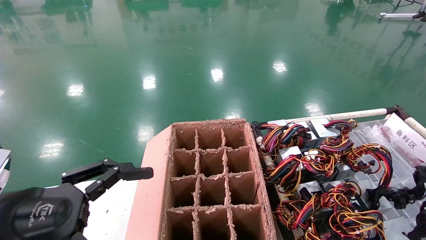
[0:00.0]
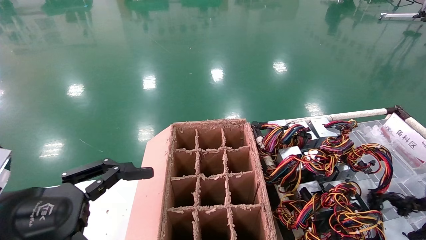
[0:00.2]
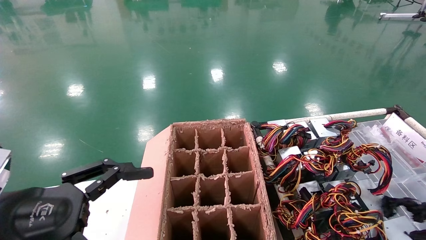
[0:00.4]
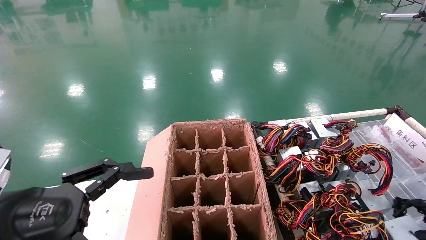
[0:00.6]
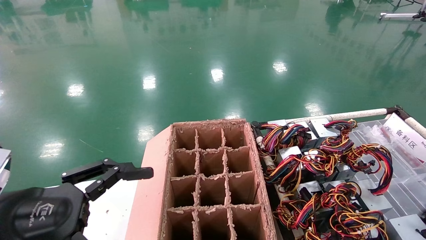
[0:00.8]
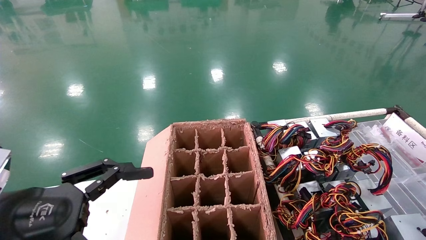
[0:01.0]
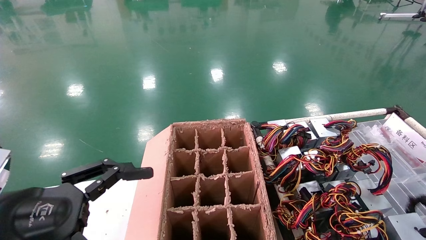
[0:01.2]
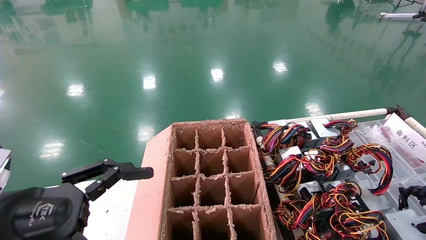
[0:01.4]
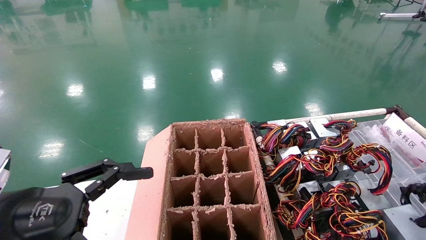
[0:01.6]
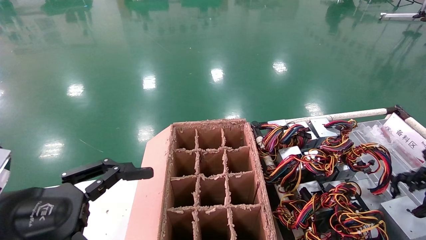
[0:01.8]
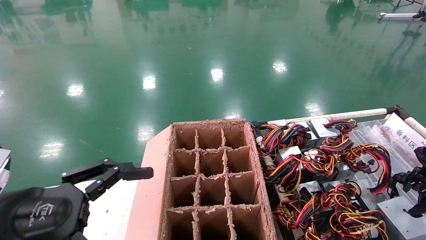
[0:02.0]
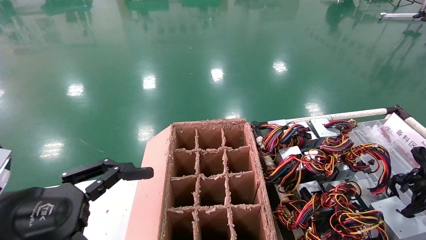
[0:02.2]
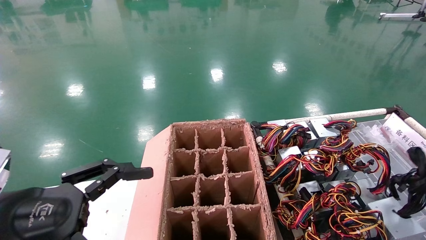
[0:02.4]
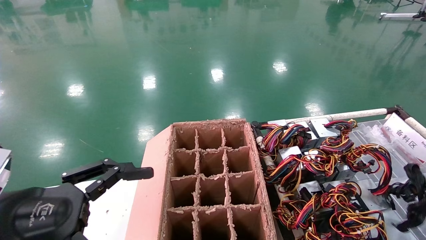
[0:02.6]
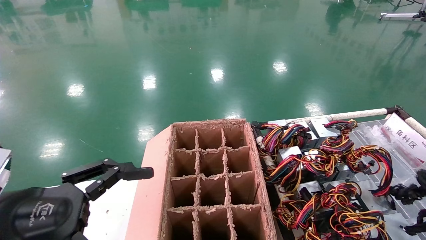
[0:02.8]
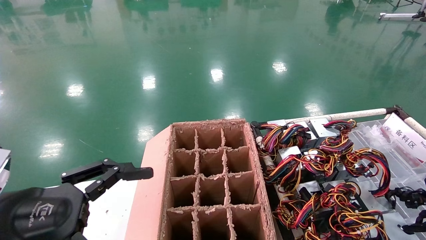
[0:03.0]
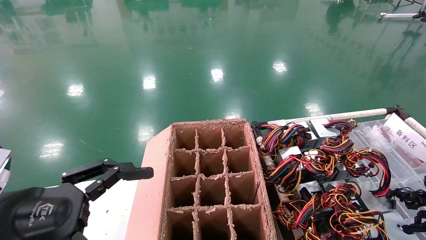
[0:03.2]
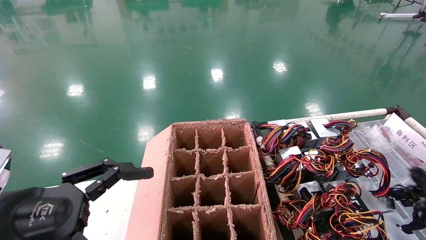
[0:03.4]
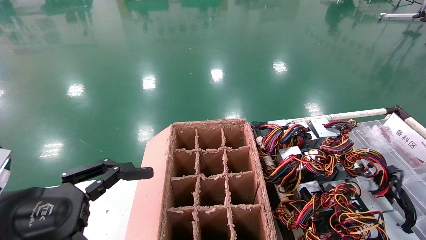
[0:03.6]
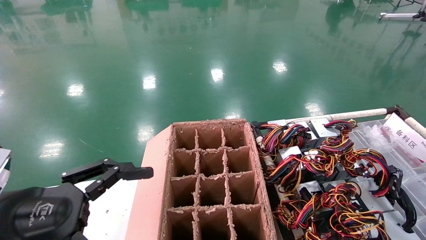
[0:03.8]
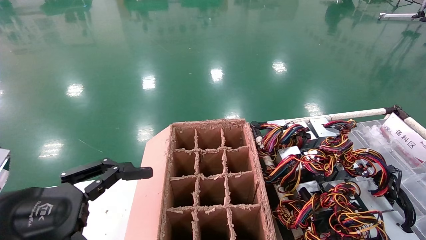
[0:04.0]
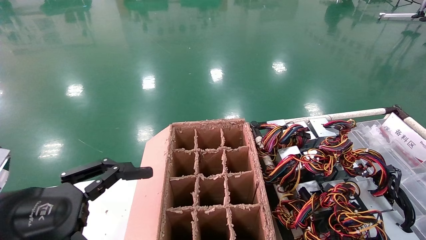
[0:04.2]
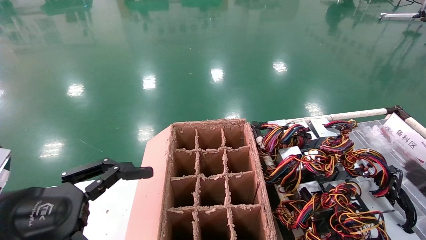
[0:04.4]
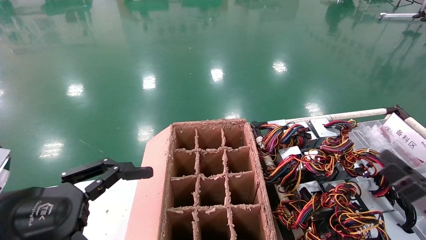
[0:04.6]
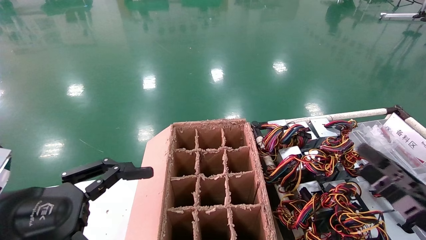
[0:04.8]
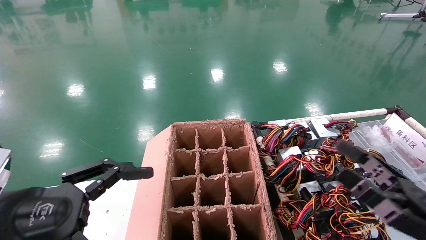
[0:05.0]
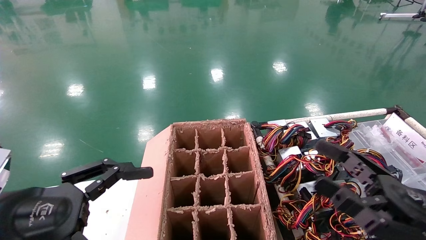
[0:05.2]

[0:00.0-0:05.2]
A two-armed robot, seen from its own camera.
Step, 0:00.0 to 0:03.6: Place the power supply on the operating table.
0:00.0 to 0:01.8: There are only small adjustments of the grippers.
0:01.8 to 0:03.4: The right gripper travels downward by about 5 cm.
0:03.4 to 0:05.2: The right gripper is displaced upward and to the left by some 25 cm, and opens.
